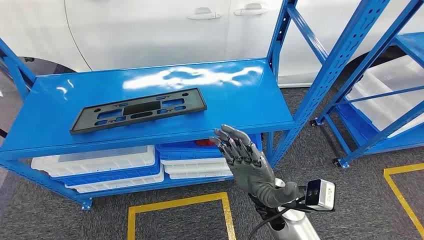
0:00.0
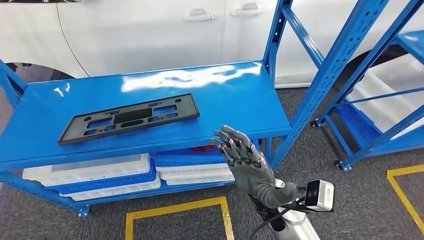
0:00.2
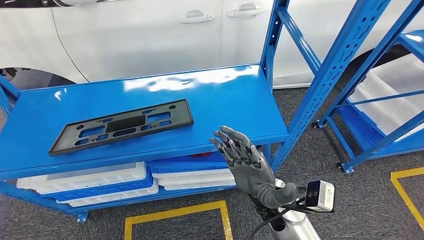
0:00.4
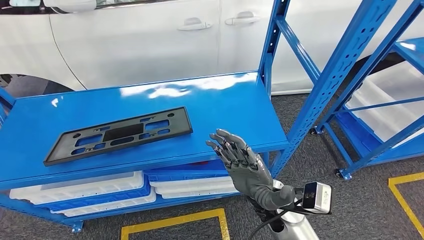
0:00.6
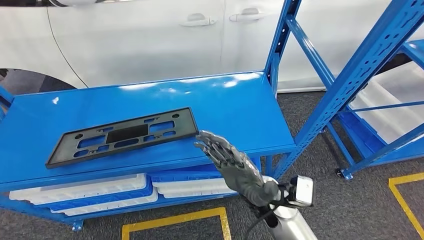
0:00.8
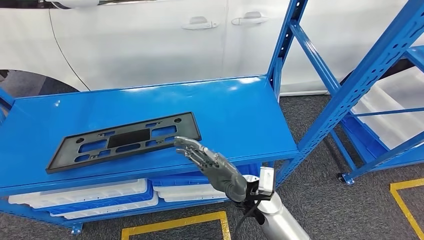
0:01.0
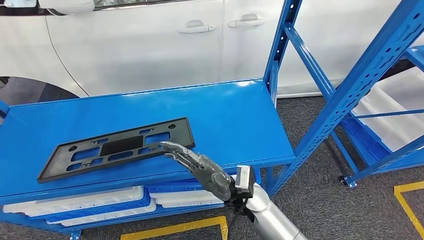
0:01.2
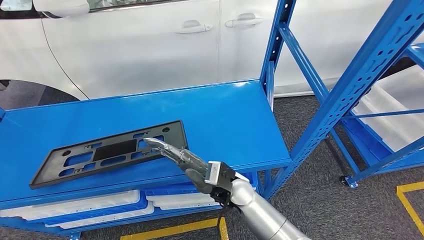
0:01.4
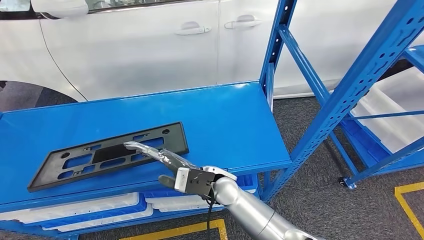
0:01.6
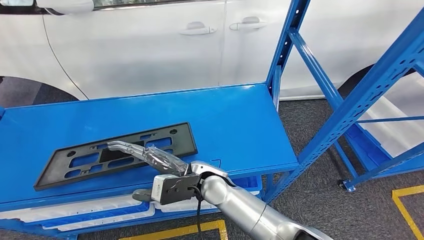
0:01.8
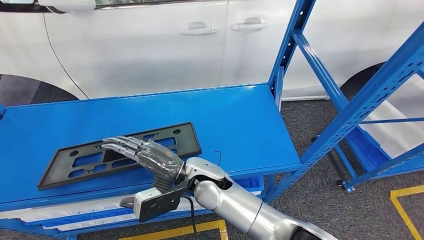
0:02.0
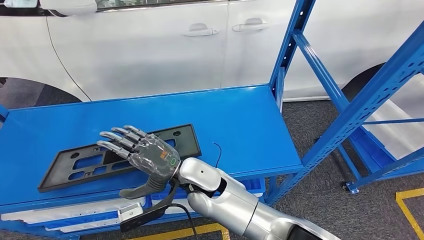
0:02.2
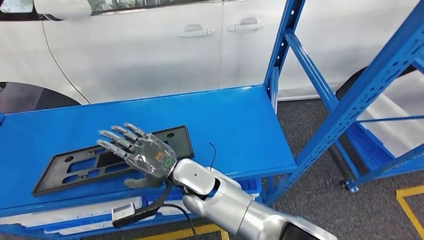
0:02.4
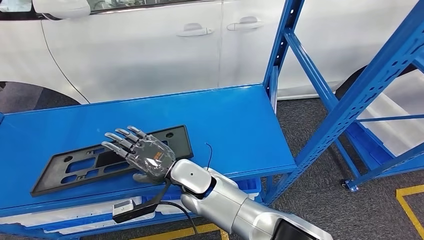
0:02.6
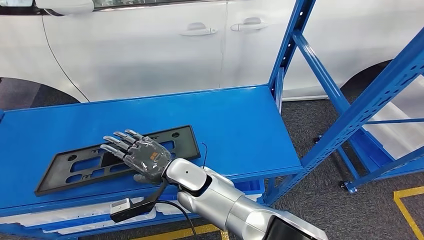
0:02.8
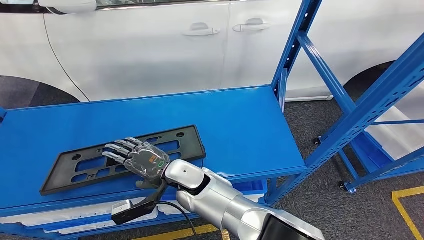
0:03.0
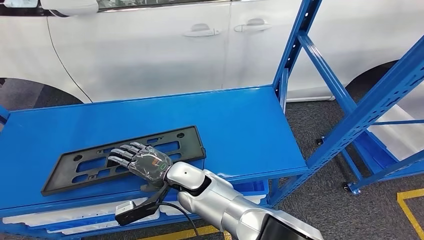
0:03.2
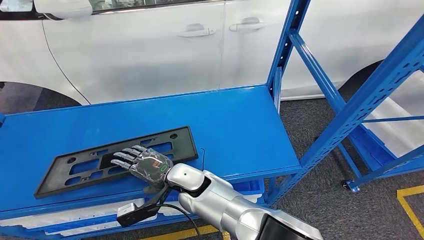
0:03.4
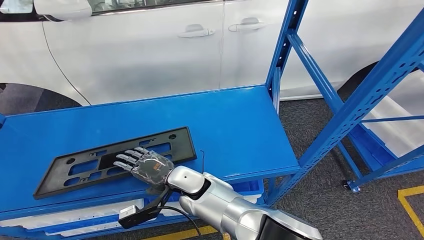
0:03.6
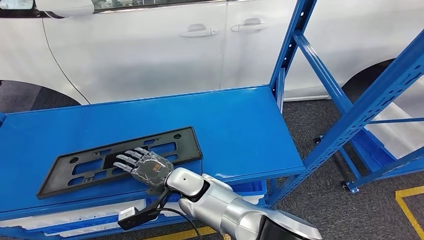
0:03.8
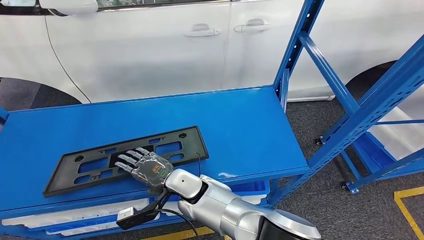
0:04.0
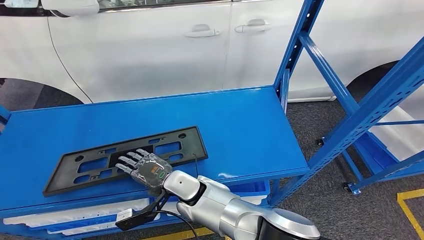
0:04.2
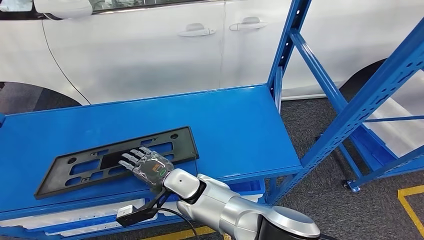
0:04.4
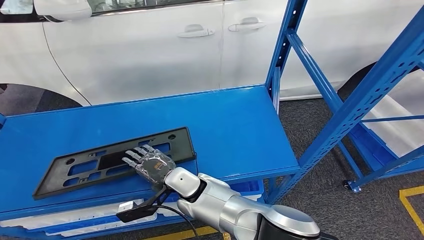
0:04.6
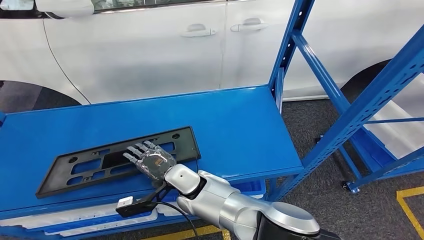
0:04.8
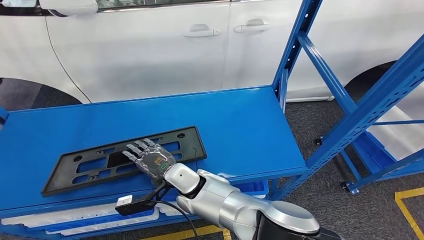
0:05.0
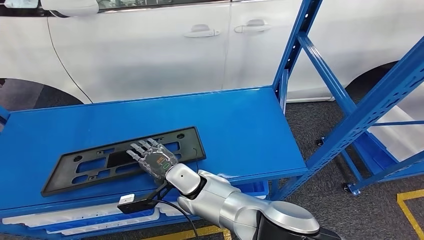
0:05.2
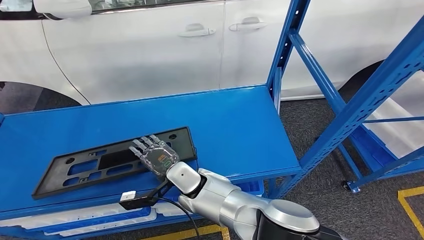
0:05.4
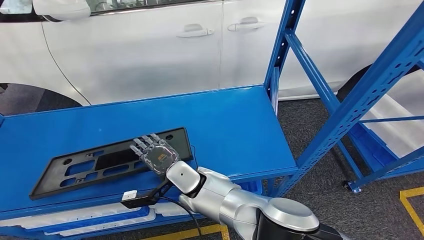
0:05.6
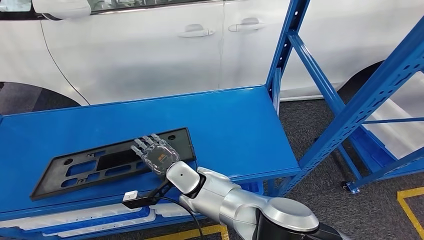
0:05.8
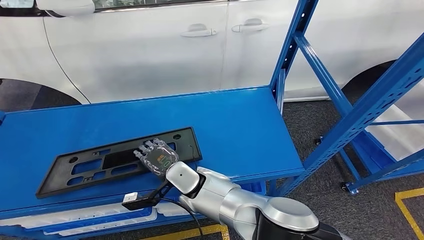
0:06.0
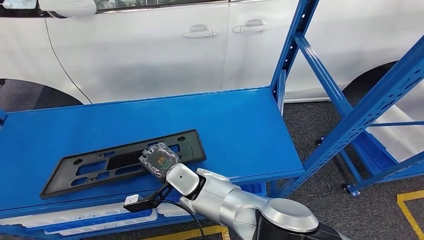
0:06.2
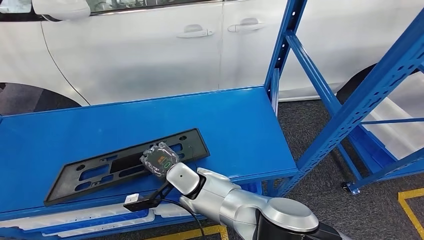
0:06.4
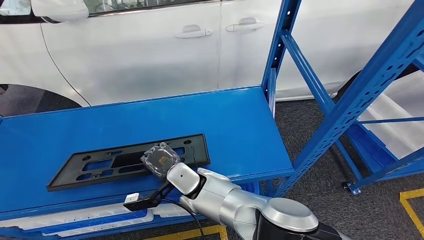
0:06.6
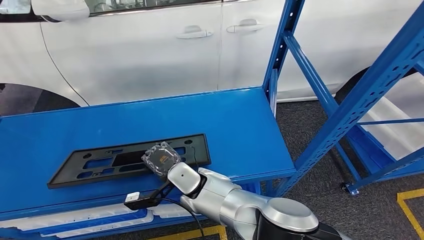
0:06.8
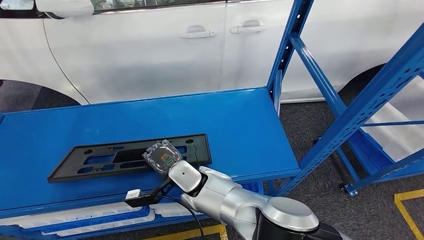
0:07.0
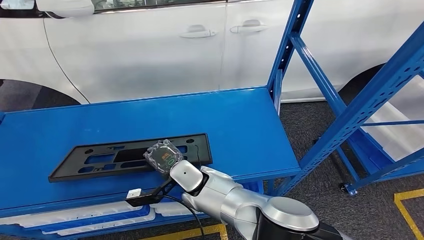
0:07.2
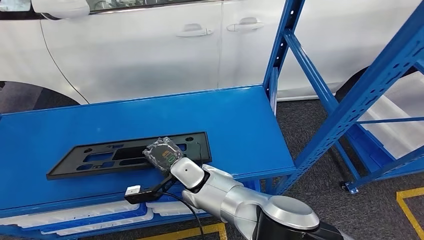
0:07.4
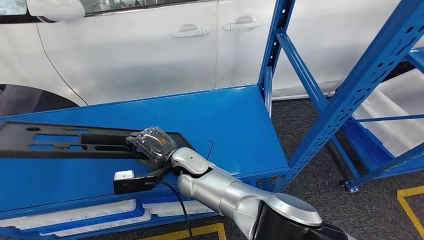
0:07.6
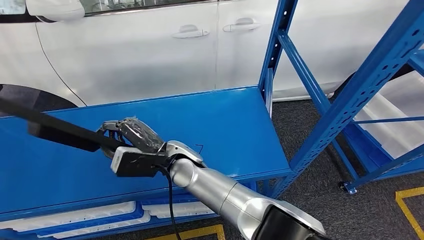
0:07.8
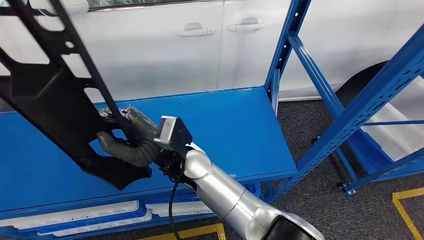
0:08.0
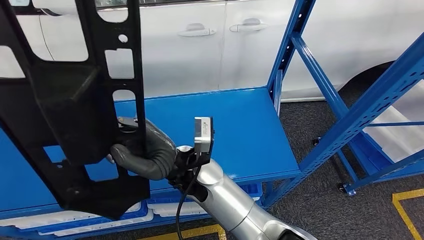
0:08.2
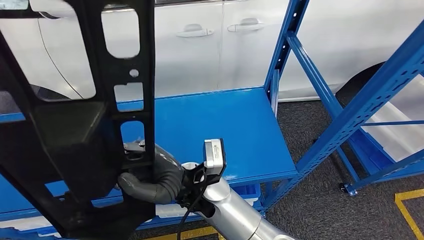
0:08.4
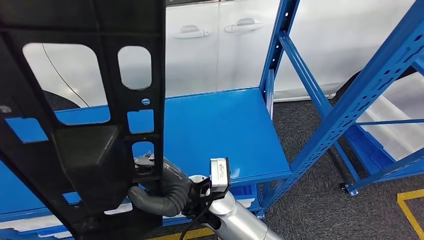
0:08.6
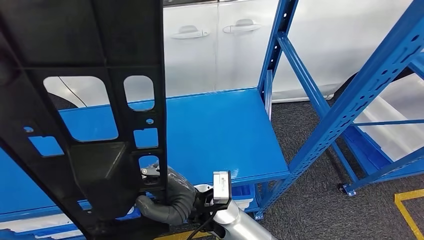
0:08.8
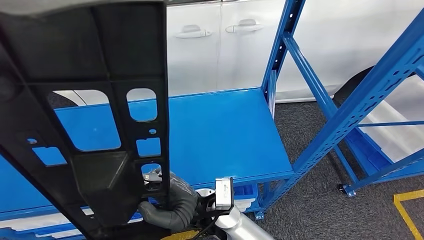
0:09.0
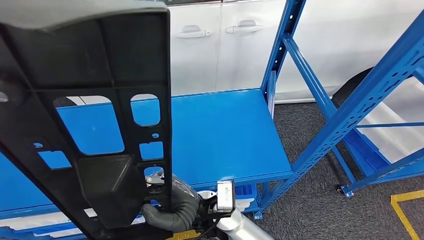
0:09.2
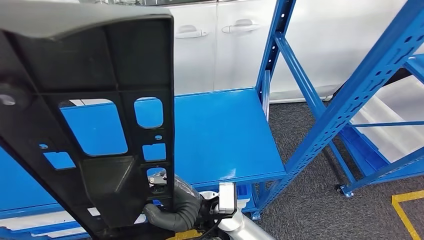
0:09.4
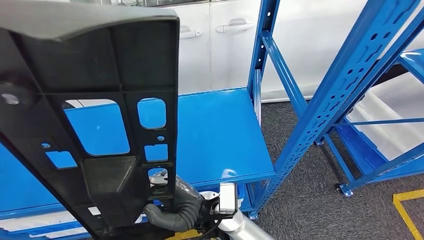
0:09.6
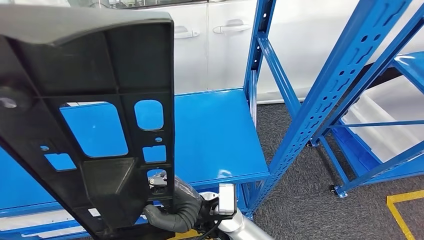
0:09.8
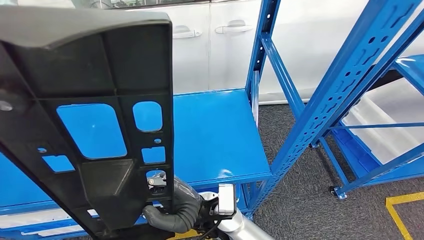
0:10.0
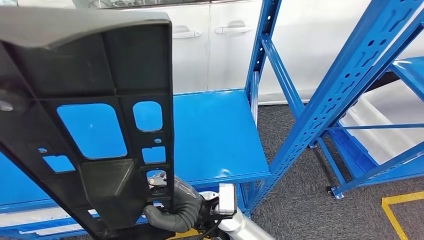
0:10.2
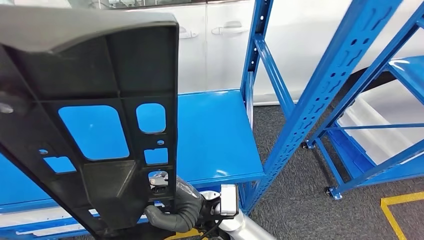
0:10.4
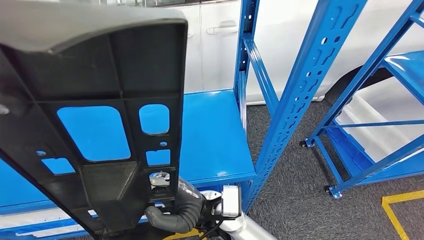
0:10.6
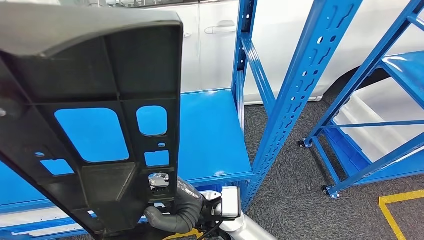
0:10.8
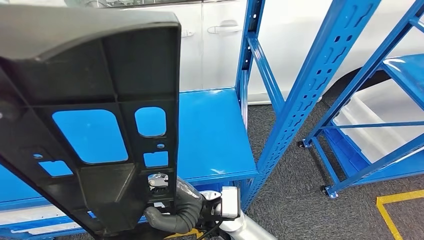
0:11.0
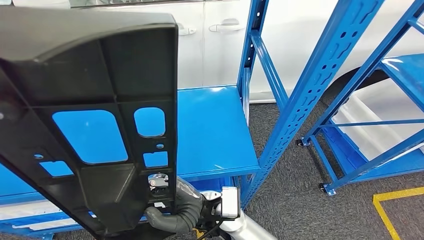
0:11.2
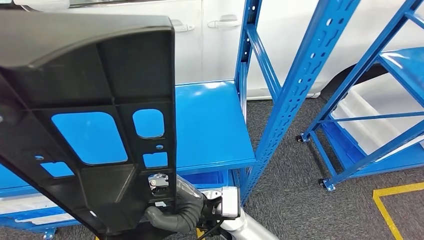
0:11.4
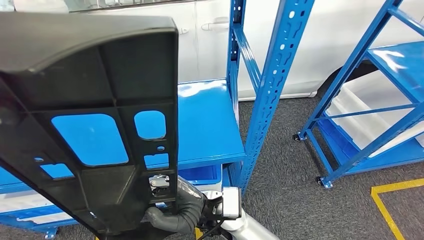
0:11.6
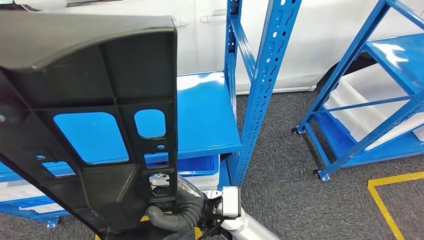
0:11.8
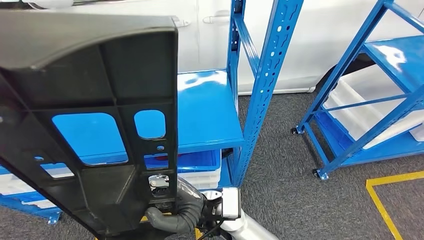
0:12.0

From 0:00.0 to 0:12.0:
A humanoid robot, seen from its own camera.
Step, from 0:00.0 to 0:05.4: Pick up the large material from the shelf.
From 0:04.4 to 0:06.0: The hands make only small movements.

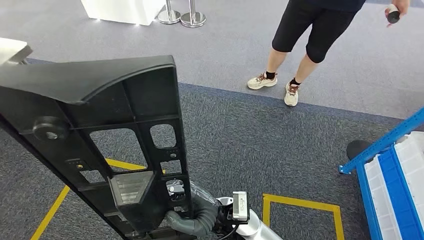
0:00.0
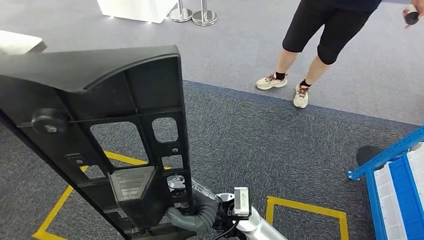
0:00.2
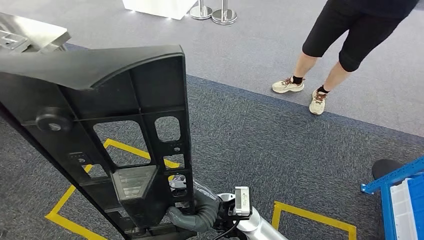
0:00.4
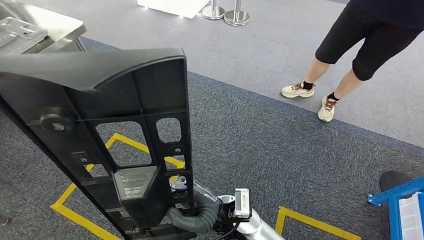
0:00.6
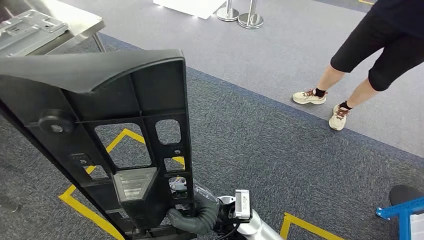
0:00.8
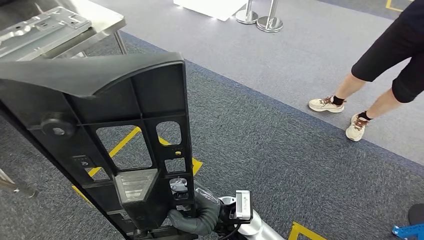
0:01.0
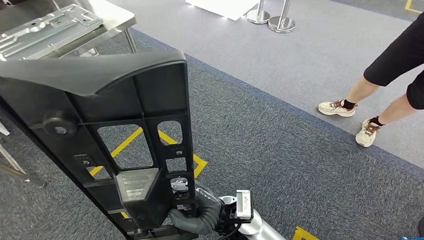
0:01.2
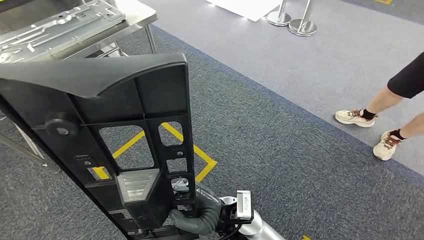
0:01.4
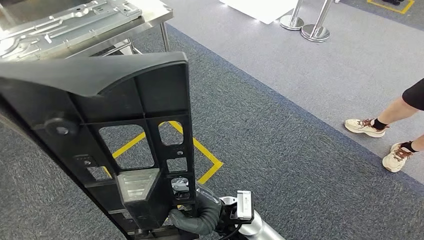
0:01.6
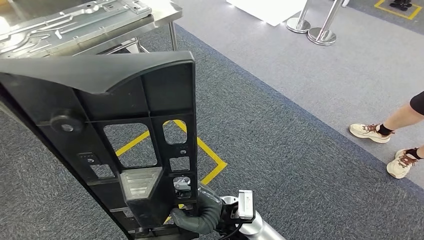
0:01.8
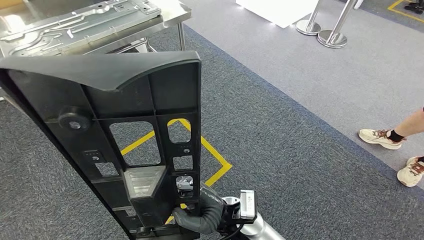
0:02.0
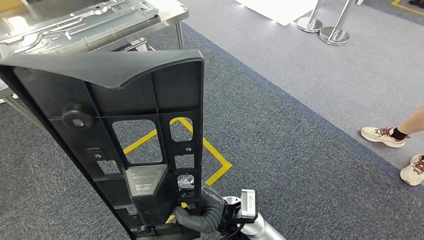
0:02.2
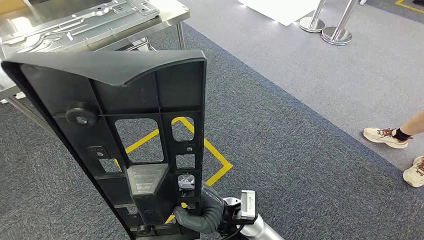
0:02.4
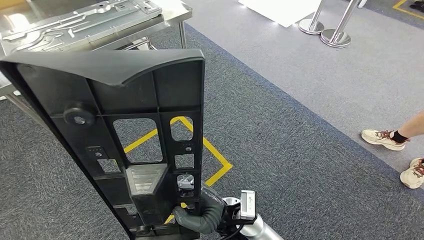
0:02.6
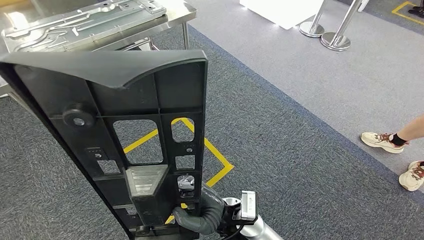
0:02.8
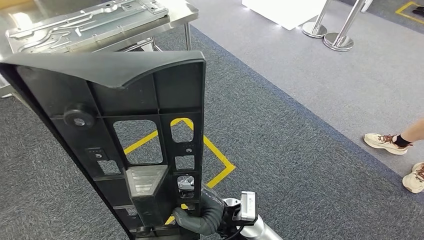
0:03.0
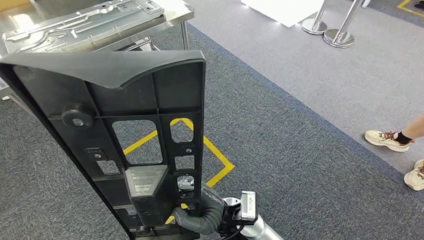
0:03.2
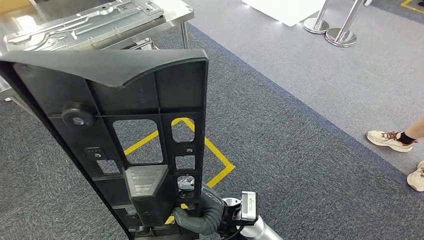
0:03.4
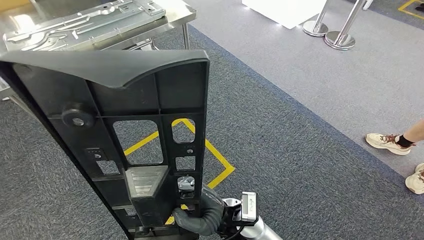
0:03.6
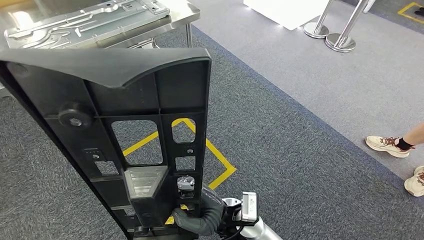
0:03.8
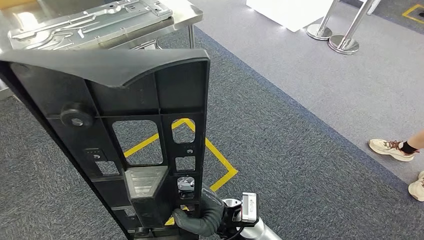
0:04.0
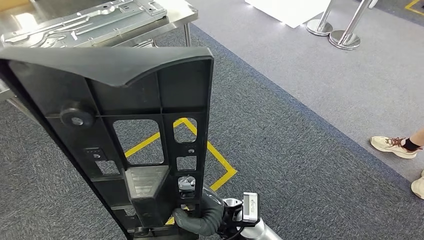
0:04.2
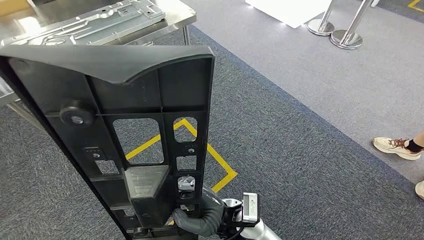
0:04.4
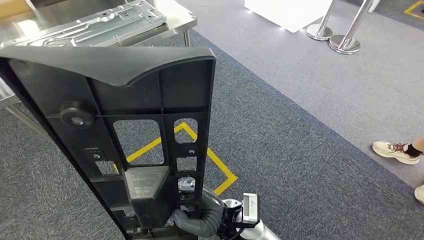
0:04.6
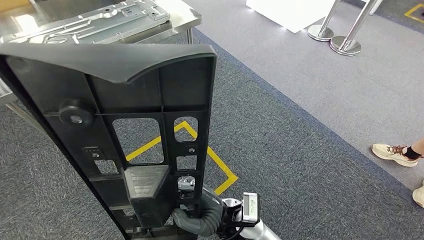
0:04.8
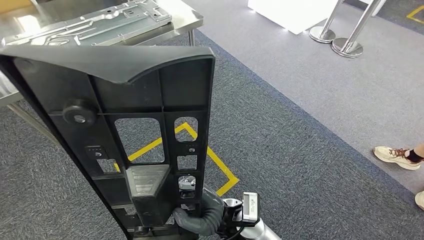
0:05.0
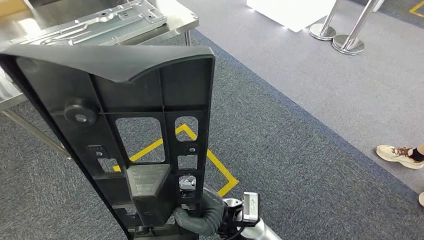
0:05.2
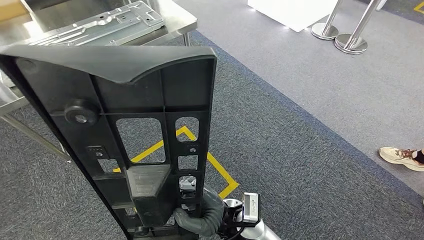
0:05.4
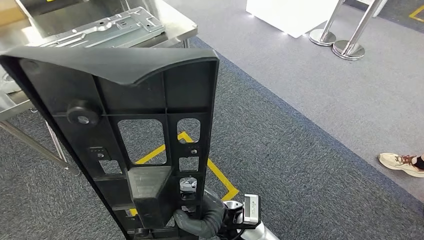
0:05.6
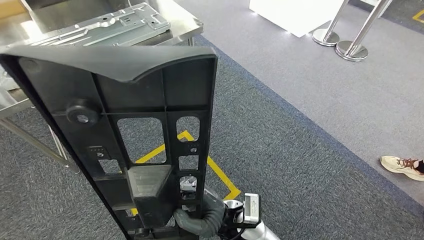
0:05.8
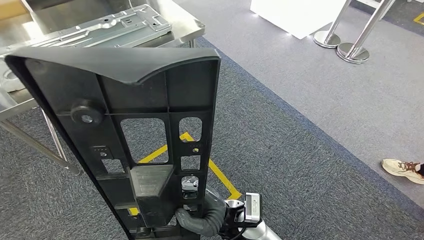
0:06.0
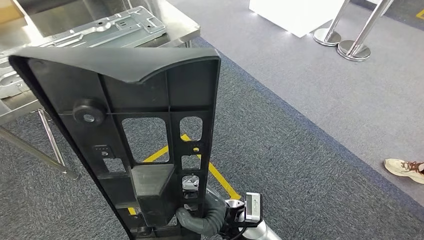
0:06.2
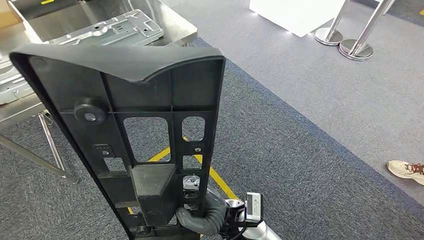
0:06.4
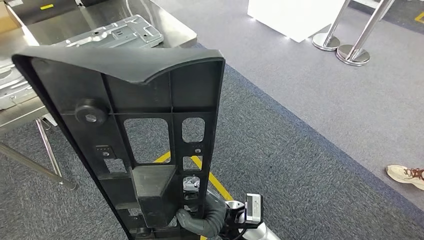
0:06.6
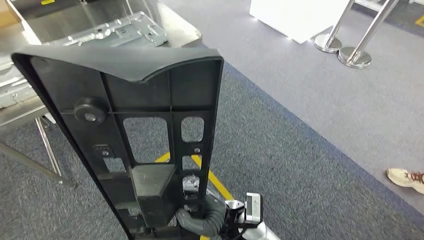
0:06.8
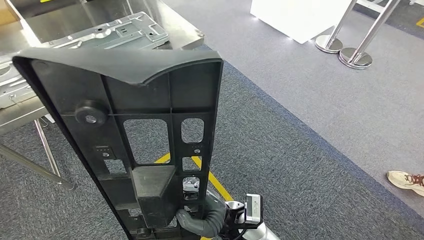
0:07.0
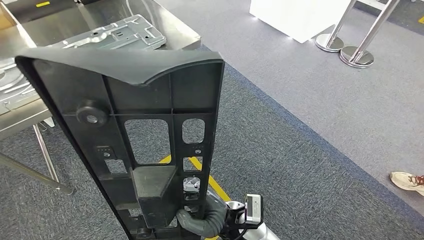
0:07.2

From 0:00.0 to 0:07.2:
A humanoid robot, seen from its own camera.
From 0:02.8 to 0:05.8: Both hands stay about where they are.
